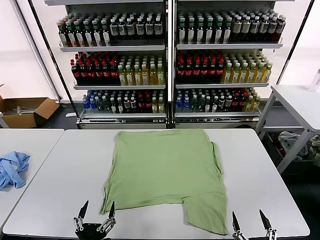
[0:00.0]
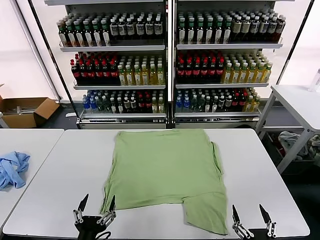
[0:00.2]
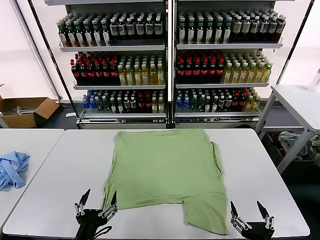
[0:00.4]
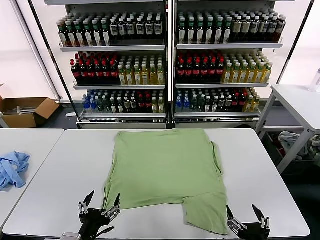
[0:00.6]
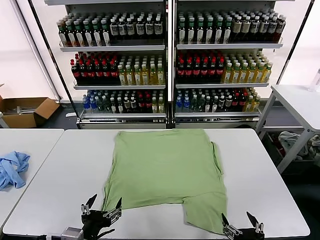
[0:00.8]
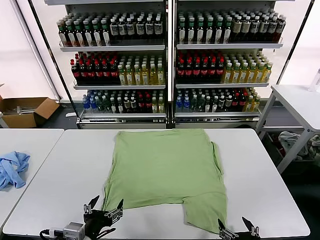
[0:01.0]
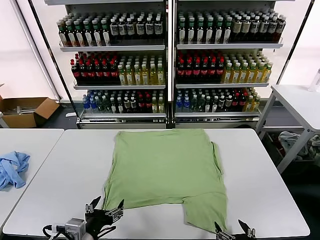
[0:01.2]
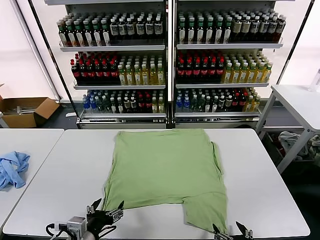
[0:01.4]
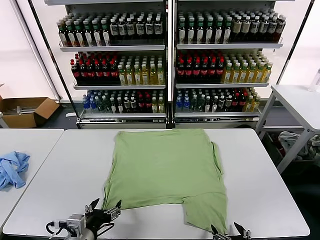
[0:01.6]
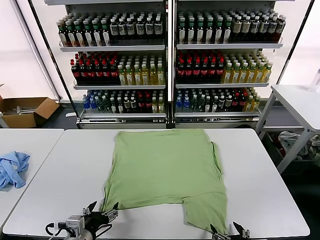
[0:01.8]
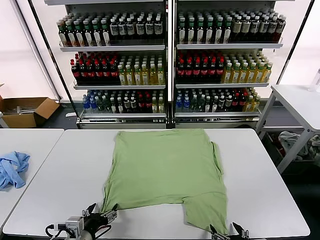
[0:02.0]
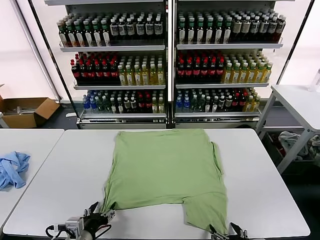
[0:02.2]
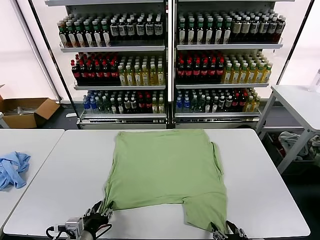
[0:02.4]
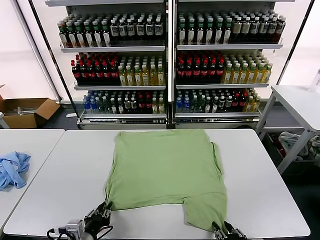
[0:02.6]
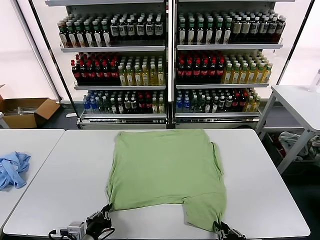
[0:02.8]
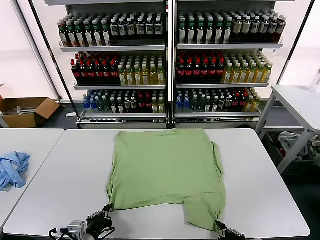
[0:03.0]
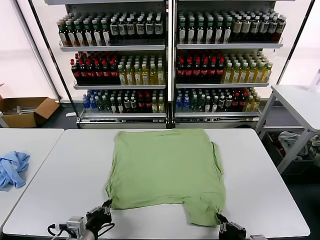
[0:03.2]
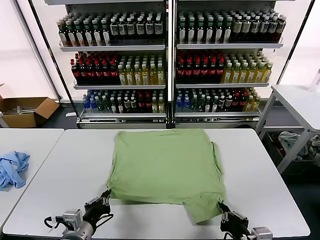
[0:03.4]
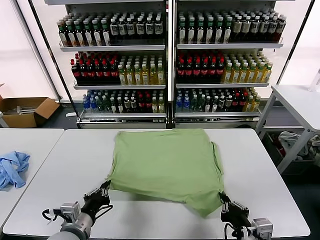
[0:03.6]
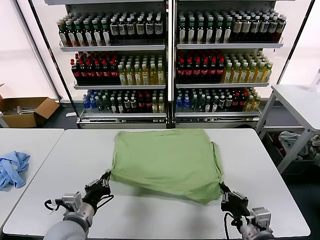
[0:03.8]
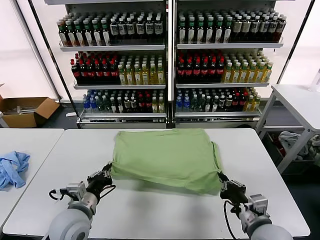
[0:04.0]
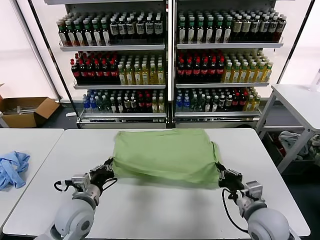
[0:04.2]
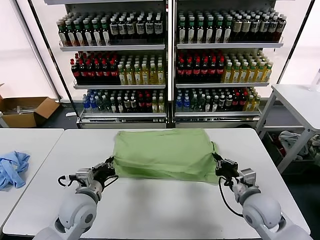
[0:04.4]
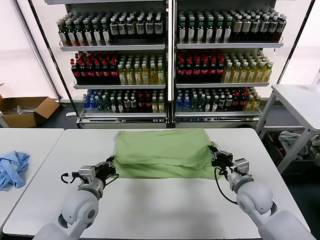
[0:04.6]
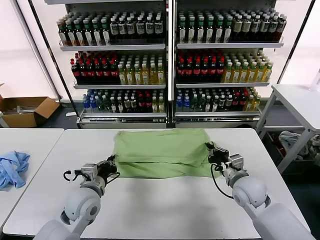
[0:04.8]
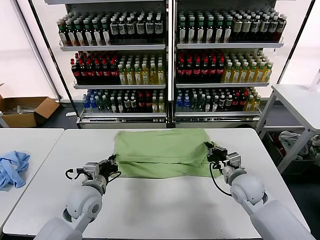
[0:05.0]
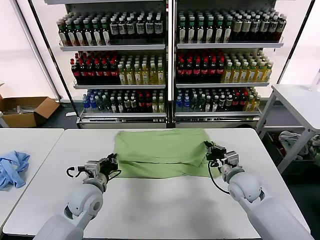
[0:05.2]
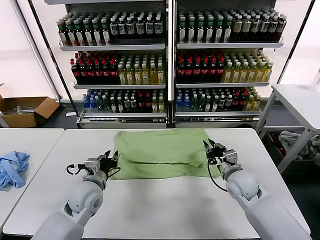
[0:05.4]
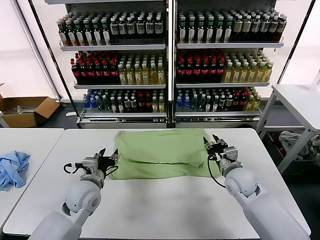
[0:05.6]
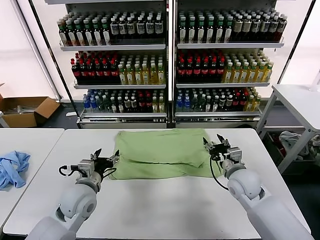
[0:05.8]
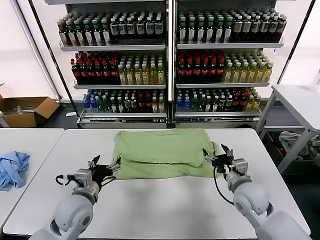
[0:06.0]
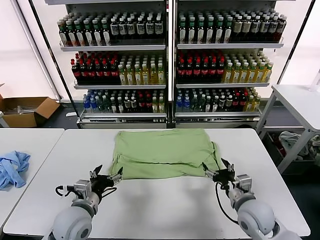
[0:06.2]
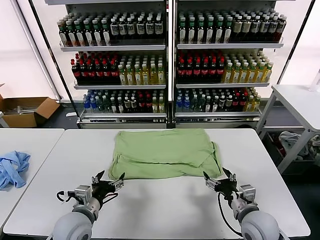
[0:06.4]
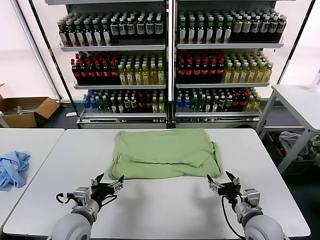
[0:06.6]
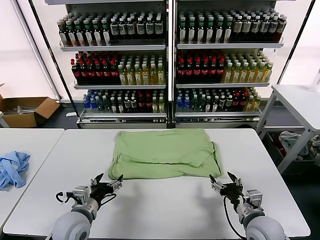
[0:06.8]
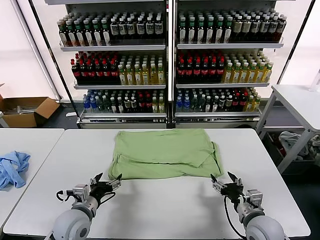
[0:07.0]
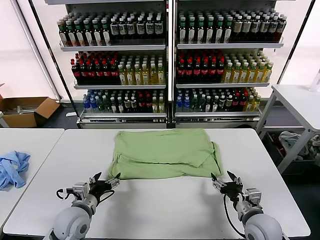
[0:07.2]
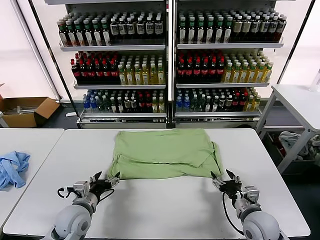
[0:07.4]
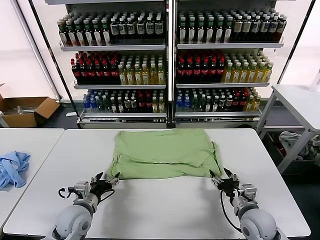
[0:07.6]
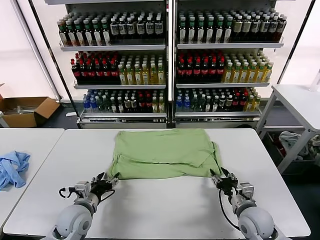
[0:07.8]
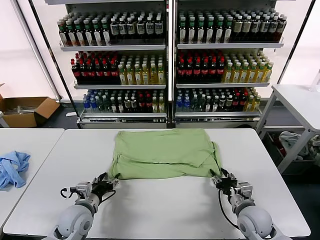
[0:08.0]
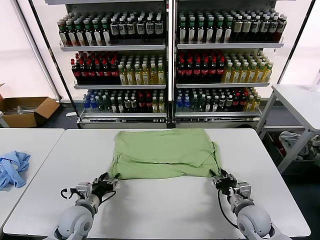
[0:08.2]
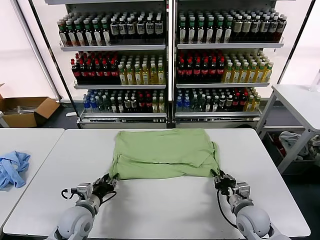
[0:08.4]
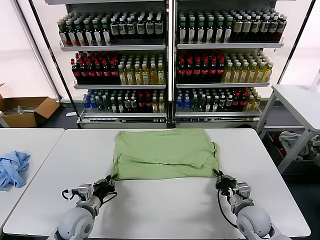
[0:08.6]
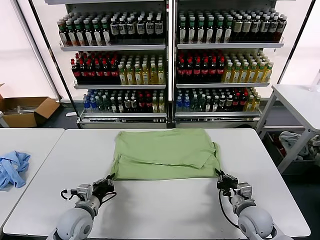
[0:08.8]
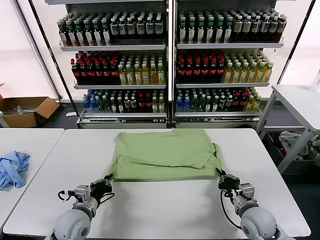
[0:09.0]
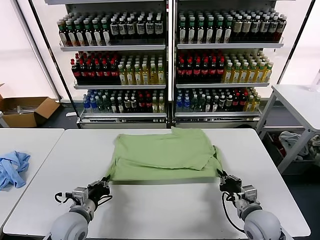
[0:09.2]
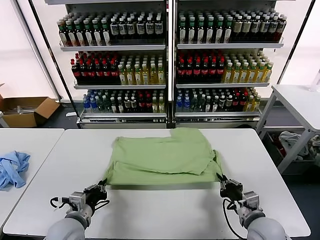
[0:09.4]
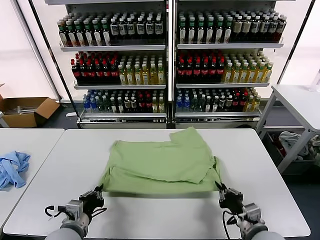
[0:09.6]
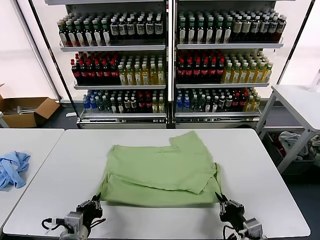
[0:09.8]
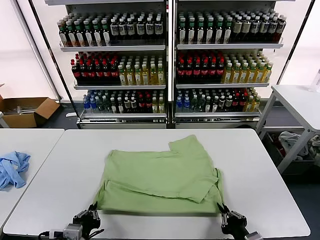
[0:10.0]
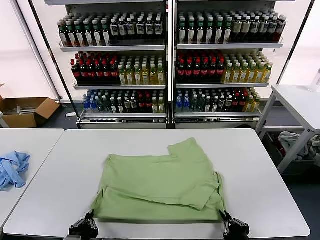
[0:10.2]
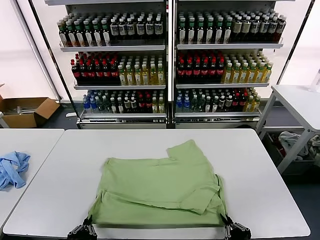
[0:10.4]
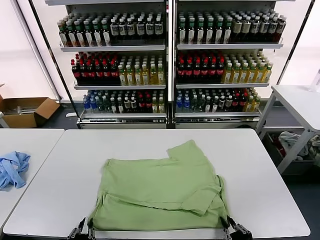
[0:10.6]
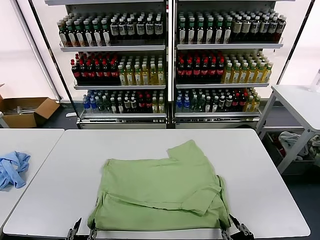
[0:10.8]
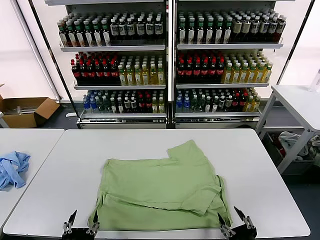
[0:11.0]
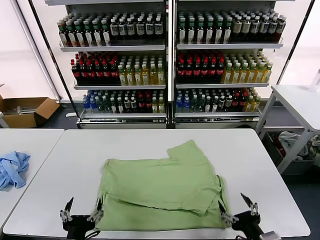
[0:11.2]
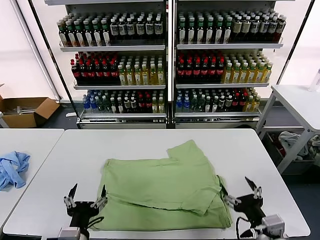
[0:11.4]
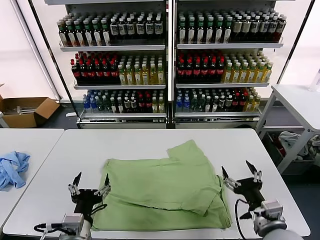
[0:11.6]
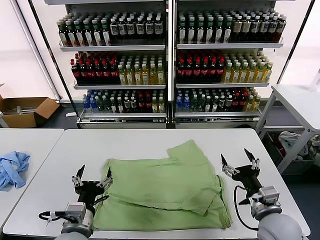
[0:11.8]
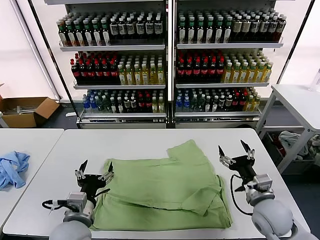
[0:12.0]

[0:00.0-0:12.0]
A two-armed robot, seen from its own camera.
Task of the whole recording: fold and organize the clothes.
Step, 0:00.0 to 0:02.8: use both grippers simultaneously to clamp the lower edge of the clothing fabric.
Step, 0:03.0 to 0:05.2: use both grippers to drag the lower edge of the fabric forward and fold it over the upper edge.
Step, 0:05.4 to 0:10.8: Drag the clothes downward with both gripper.
0:01.6 to 0:03.0: The right gripper closes its fingers, while the left gripper closes its fingers.
0:03.0 to 0:04.4: The right gripper goes about 20 cm forward, while the left gripper goes approximately 15 cm forward.
0:04.4 to 0:06.0: The right gripper reaches some 5 cm forward, then returns, and opens its fingers. The left gripper opens up.
0:06.0 to 0:07.6: The grippers both shift downward by approximately 5 cm.
0:07.6 to 0:09.0: The left gripper closes up. Meanwhile the right gripper closes its fingers.
0:09.0 to 0:10.4: Both grippers travel together backward, about 20 cm.
0:10.4 to 0:12.0: The right gripper travels forward by approximately 20 cm, and opens its fingers. Meanwhile the left gripper moves forward, roughly 10 cm, and opens its fingers.

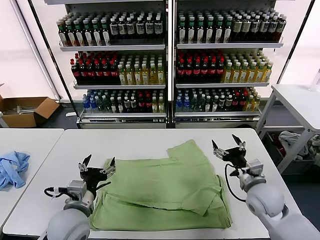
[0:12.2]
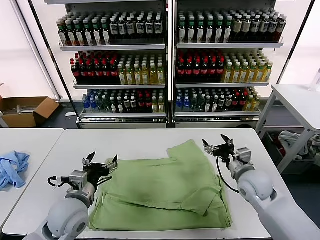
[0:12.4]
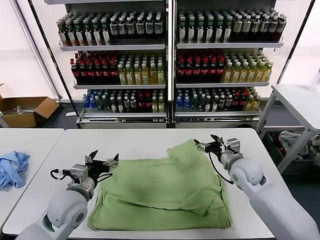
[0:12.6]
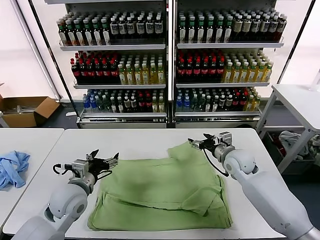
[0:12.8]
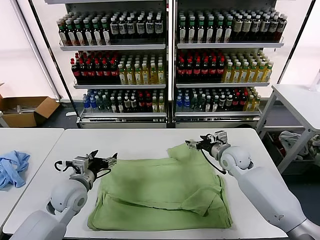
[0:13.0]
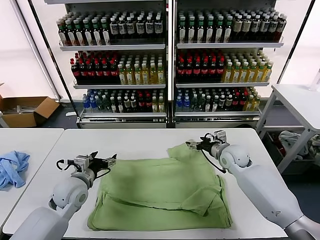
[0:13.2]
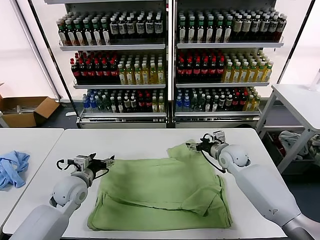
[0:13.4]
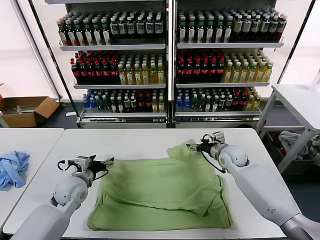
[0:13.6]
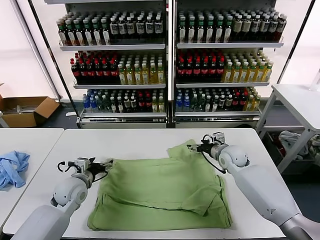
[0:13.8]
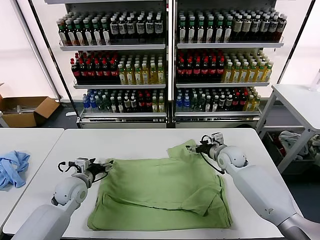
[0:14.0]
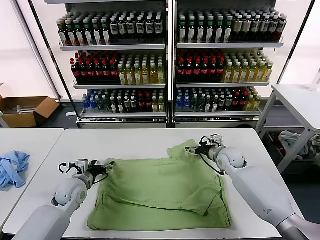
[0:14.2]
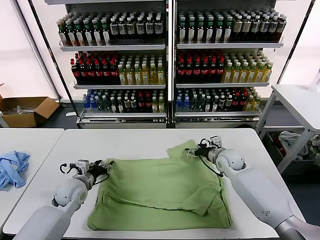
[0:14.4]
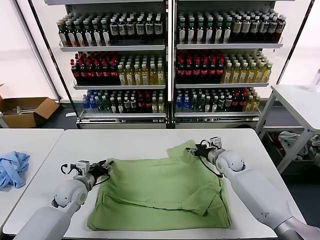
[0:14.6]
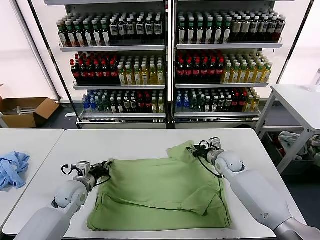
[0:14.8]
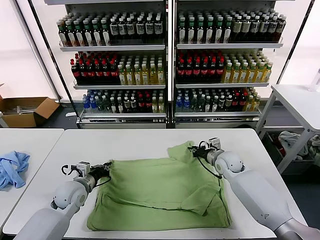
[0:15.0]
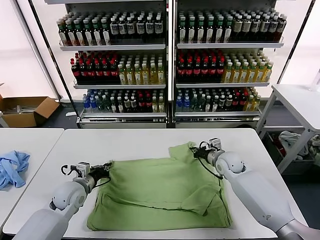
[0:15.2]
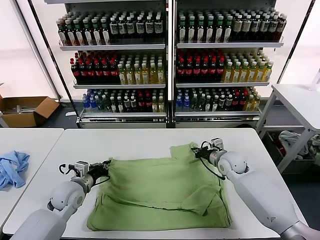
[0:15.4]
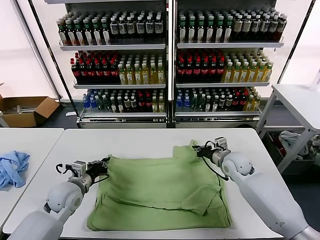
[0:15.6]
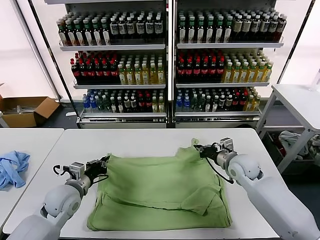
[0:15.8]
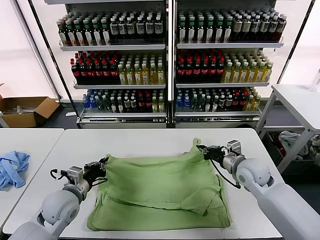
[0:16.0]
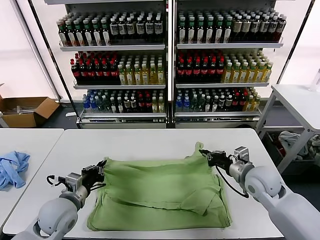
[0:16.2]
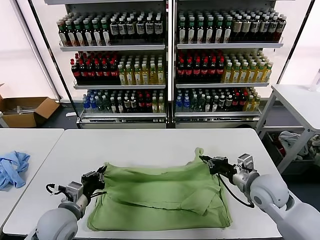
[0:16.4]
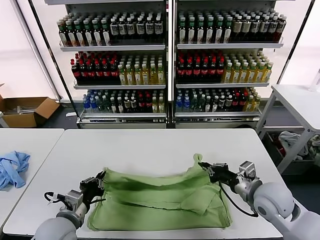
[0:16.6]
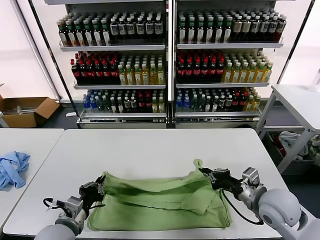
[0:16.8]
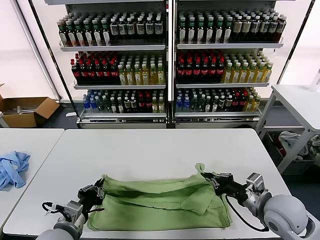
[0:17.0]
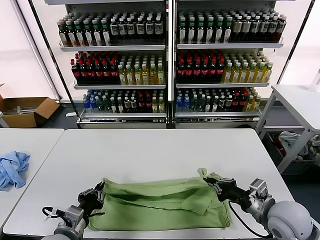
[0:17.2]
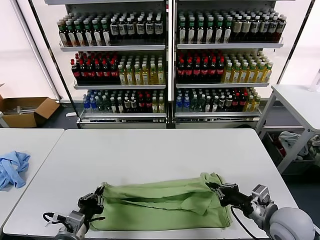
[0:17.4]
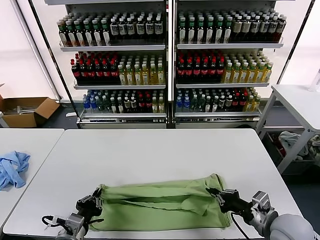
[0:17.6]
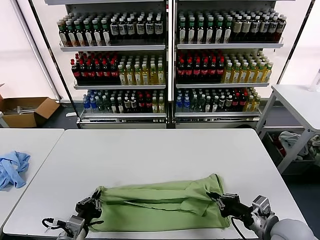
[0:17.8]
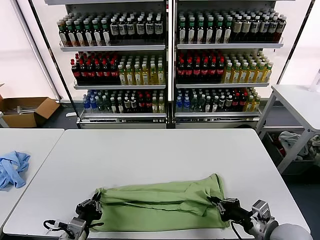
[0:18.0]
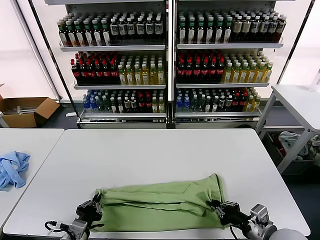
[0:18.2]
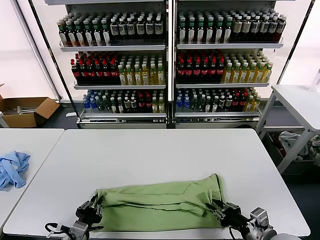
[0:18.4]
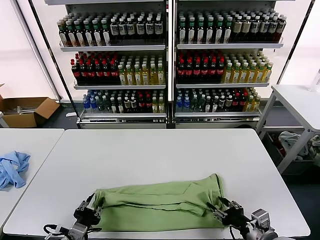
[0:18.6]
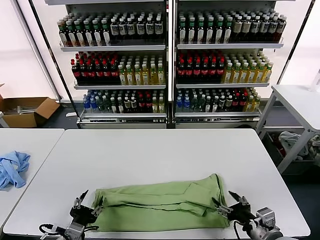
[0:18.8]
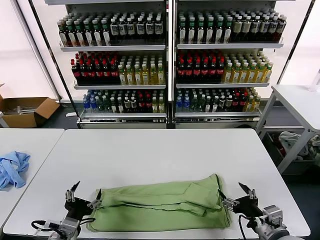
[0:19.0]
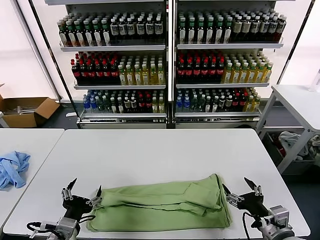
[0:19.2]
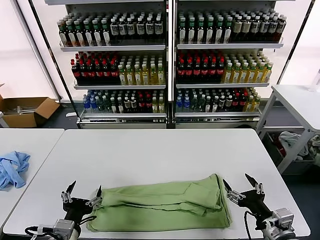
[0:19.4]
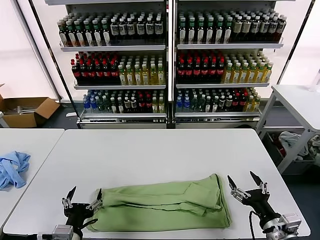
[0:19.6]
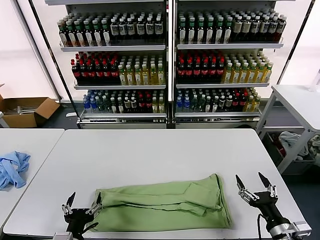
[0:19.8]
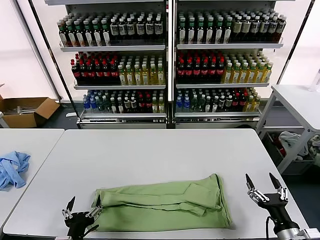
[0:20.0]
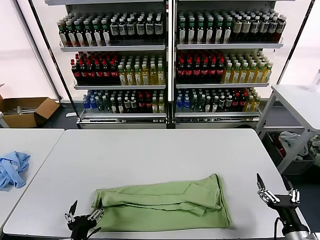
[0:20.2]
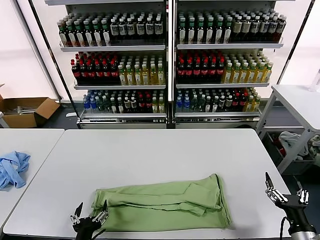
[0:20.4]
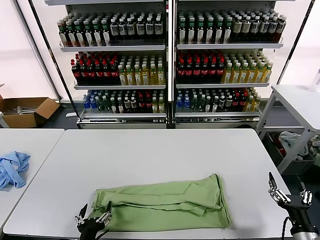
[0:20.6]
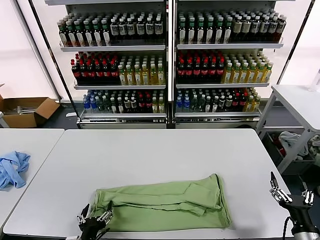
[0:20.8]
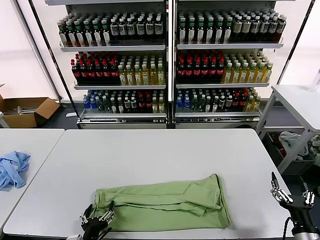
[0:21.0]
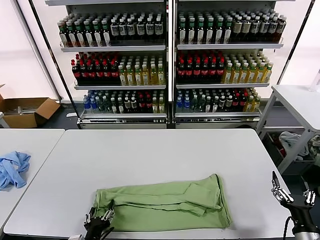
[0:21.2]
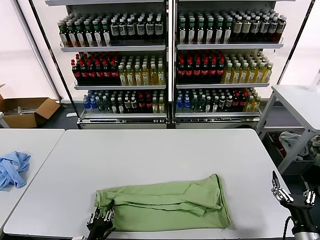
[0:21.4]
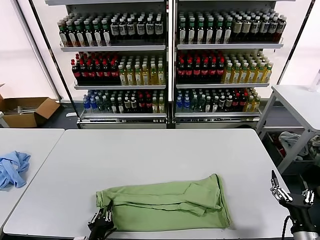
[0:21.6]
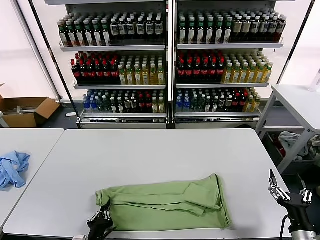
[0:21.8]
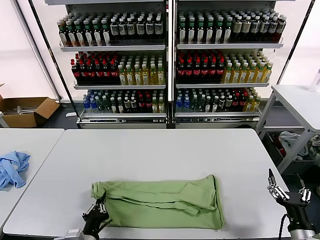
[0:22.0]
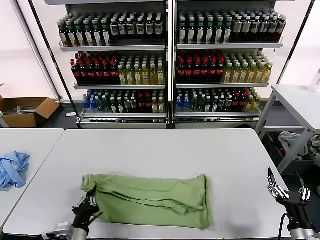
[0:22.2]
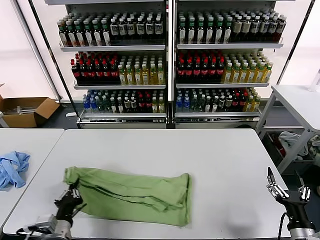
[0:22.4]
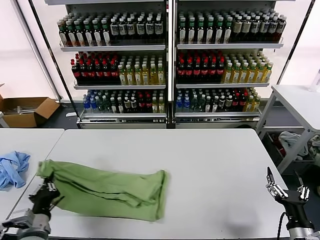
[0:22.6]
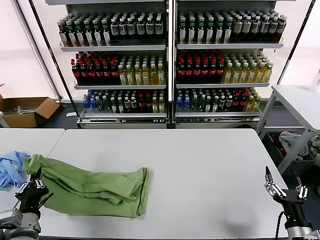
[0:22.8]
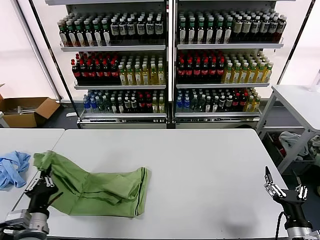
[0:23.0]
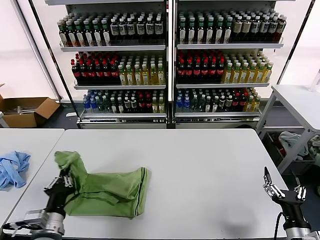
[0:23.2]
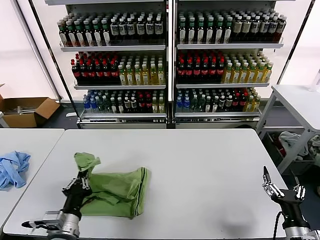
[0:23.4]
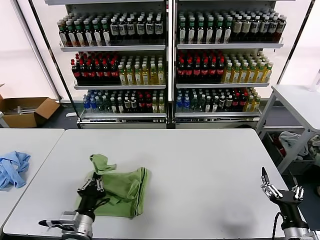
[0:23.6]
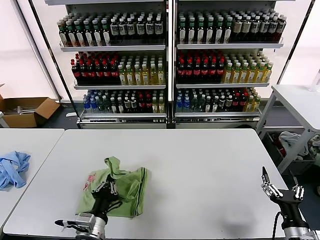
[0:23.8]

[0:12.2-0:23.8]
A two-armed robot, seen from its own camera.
Task of the whole recording: fold and organize the clothes.
Step, 0:12.2 to 0:15.2: use both grippers simultaneously to clamp the upper edge of the clothing fabric.
Step, 0:15.4 to 0:18.6: use both grippers to drag the upper edge of the fabric backward and fold it over the lower edge.
Step, 0:18.8 to 0:21.6: use the left gripper to clamp the left edge of the fabric.
0:12.2 to 0:13.6: The left gripper heads forward and to the left, covering about 15 cm, while the right gripper goes about 15 cm forward.
0:13.6 to 0:15.0: The left gripper closes up; the right gripper closes up.
0:15.0 to 0:16.6: The right gripper goes about 20 cm backward and upward. Meanwhile the left gripper travels backward by approximately 15 cm.
0:16.6 to 0:18.0: Both grippers move backward, roughly 10 cm.
0:18.0 to 0:19.4: The right gripper opens. Meanwhile the left gripper opens.
0:19.4 to 0:21.0: The right gripper heads to the right, covering some 5 cm; the left gripper is displaced downward by approximately 10 cm.
0:21.0 to 0:22.4: The left gripper moves to the left, about 5 cm, and closes.
0:22.4 to 0:23.8: The left gripper goes some 5 cm to the right.
